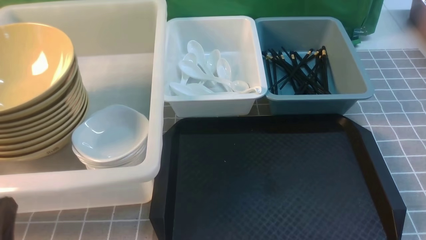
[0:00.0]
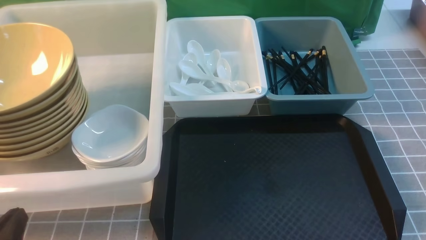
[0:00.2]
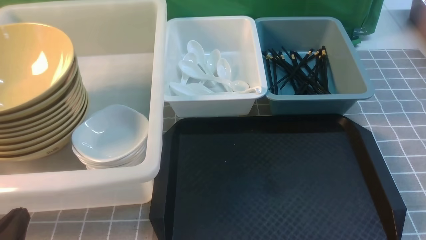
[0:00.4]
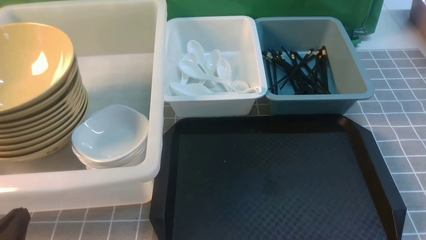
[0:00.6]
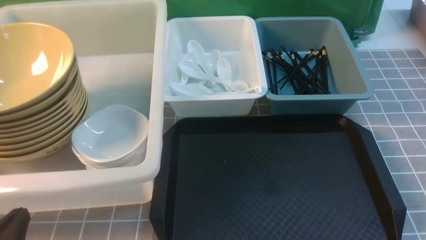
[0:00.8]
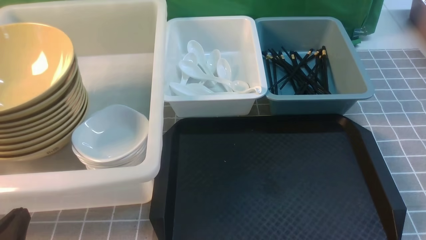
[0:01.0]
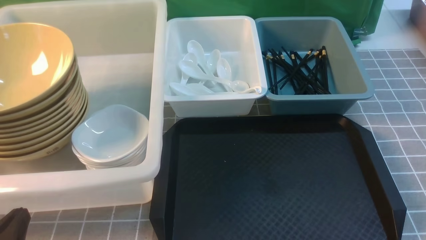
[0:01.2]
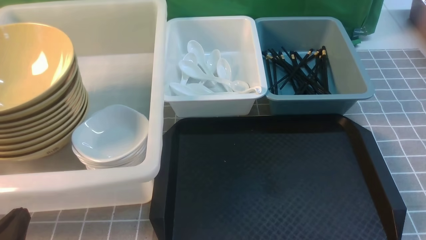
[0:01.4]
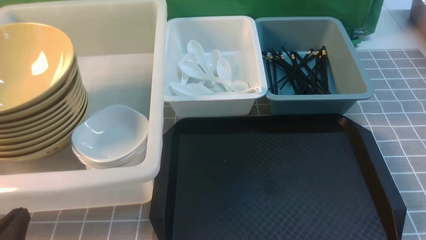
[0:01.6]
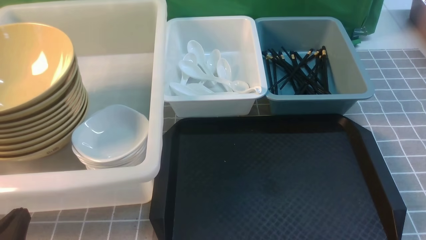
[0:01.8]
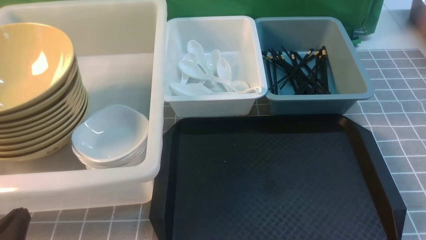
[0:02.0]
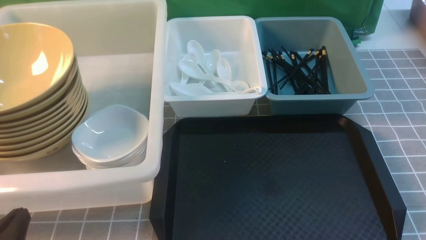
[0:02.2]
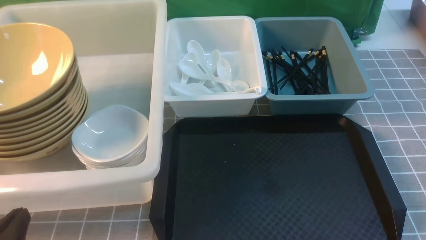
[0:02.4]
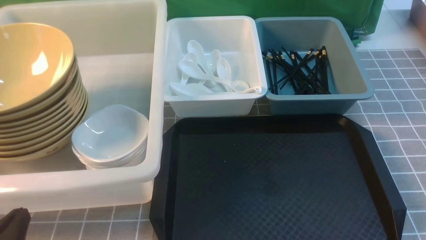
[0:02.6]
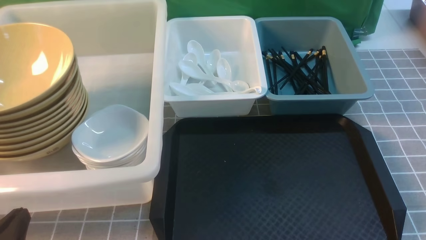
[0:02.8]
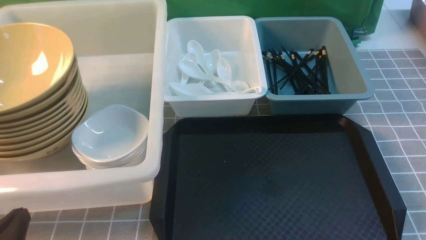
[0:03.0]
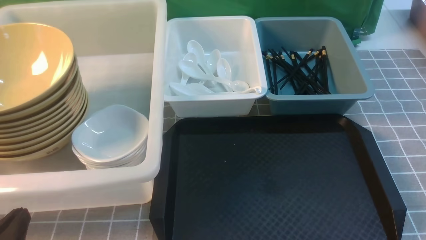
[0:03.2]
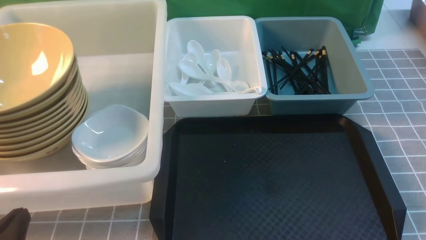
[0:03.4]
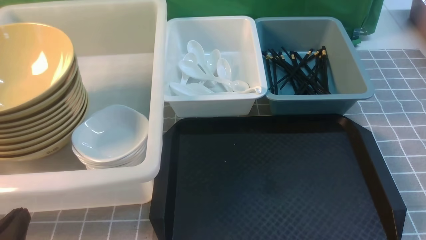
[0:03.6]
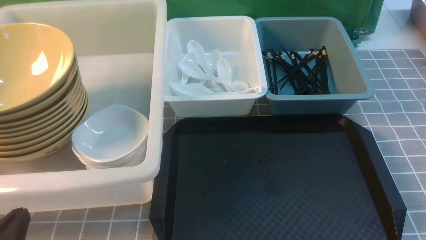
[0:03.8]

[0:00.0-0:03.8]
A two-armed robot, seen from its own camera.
Task of the whole recording: on grey table put chopsticks spoon bowls plates into blue grey white boxes.
0:01.2 to 0:03.8: Neither gripper changes place.
